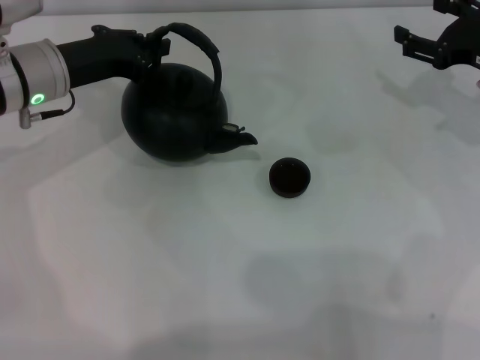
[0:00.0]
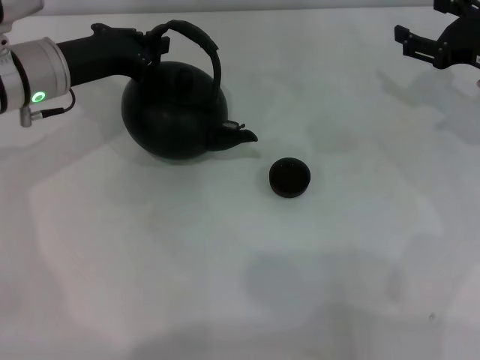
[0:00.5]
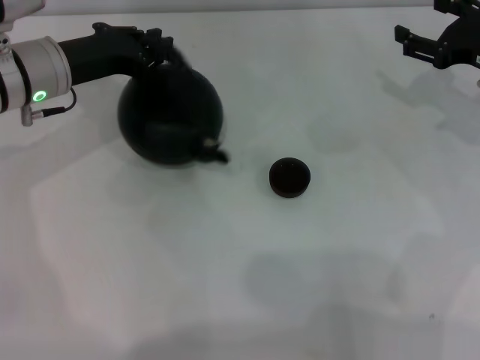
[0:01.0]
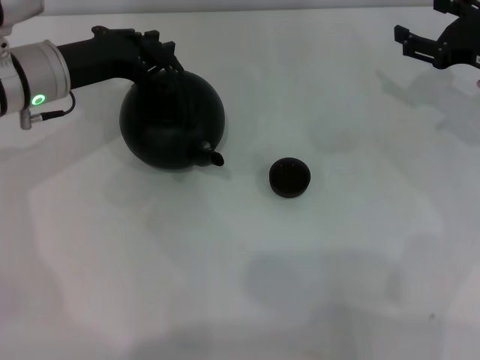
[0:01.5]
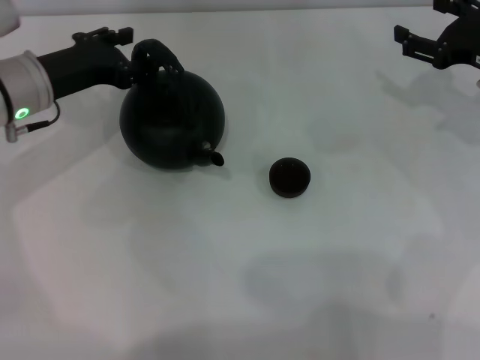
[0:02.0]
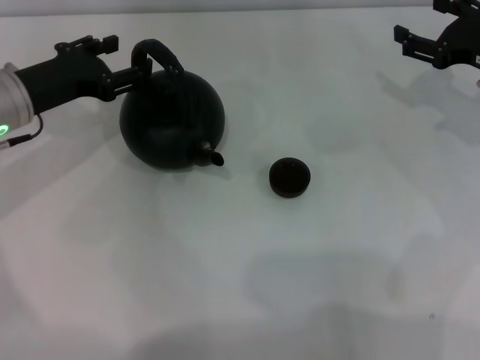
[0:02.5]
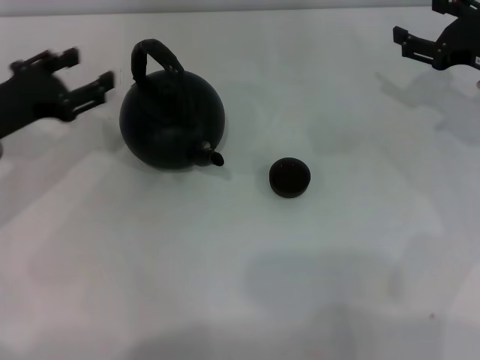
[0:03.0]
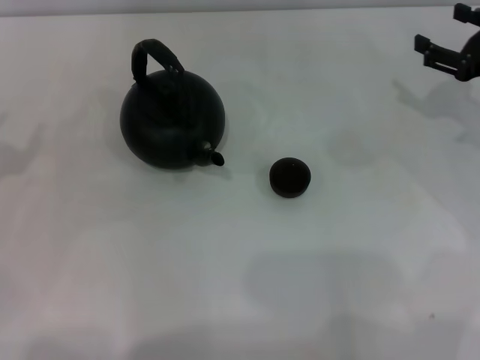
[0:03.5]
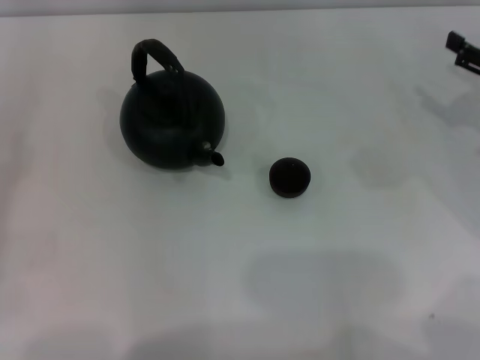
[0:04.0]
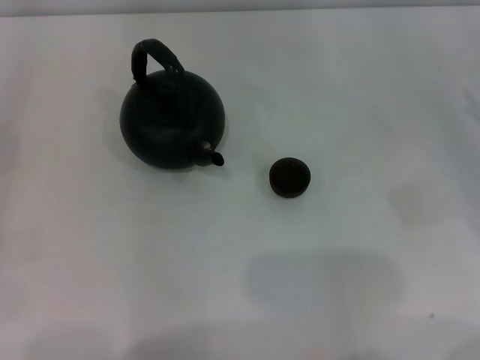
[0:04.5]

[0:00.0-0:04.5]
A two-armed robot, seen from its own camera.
Task of the whole recording: Grasp the handle of the teapot with one hand and pour tea into the teacup.
Step, 0:00.0 to 0:02.0: Put down the teapot with the left gripper.
0:00.0 to 0:02.0: The left gripper opens its fingers.
0:02.0 to 0:04.5: The left gripper is displaced to the left and backward by some 25 cm; the right gripper travels backward and to the right by approximately 10 cm.

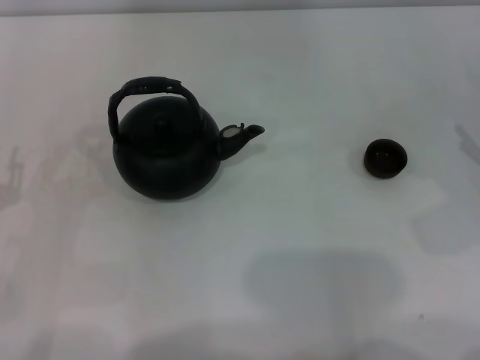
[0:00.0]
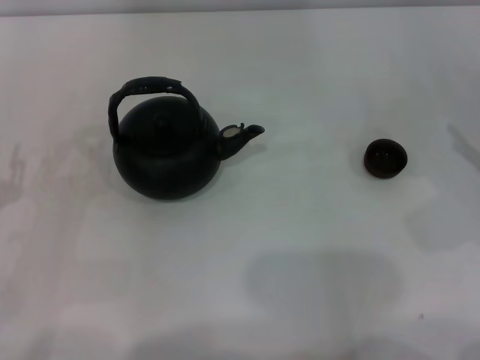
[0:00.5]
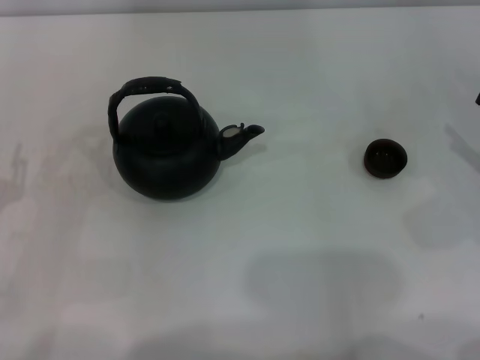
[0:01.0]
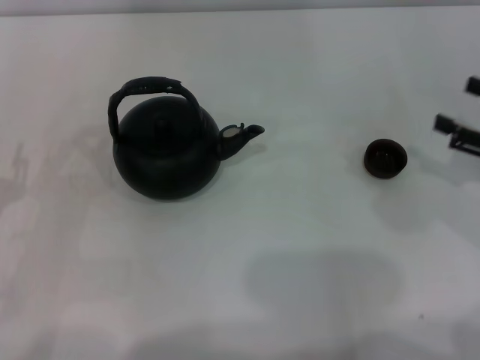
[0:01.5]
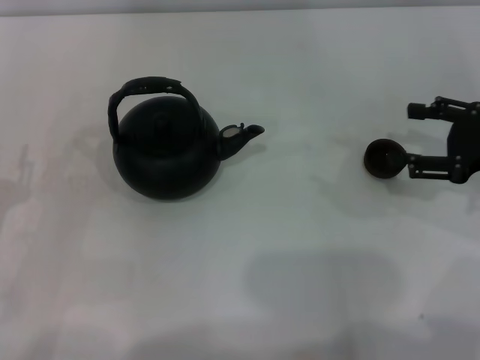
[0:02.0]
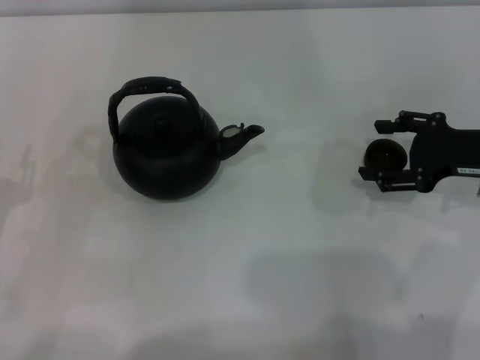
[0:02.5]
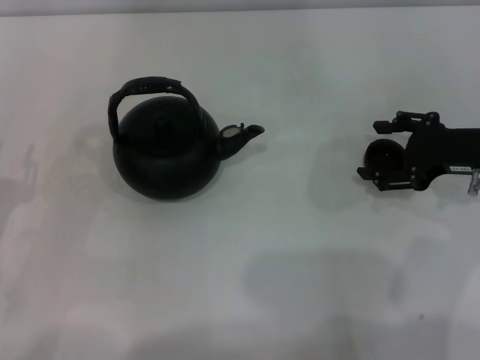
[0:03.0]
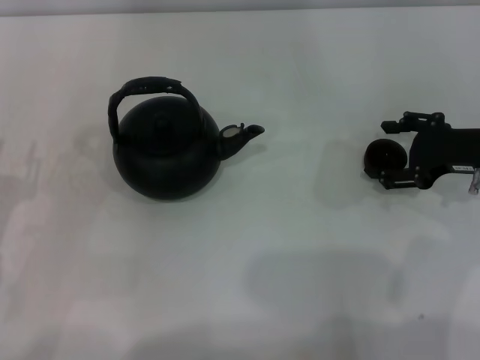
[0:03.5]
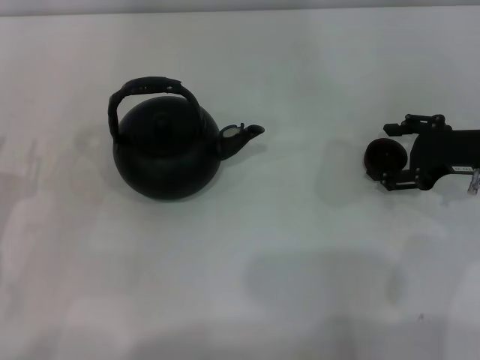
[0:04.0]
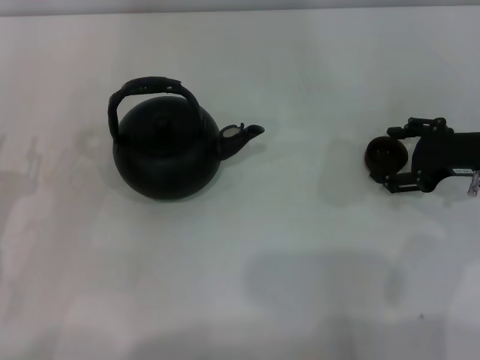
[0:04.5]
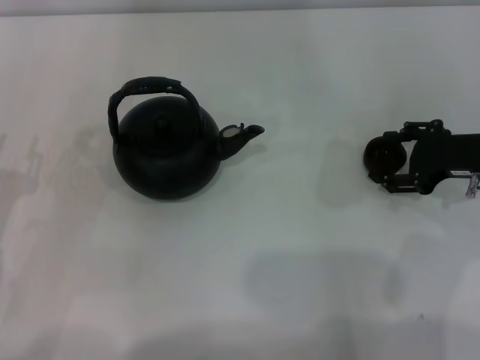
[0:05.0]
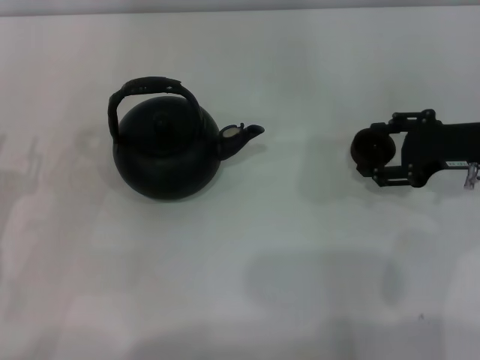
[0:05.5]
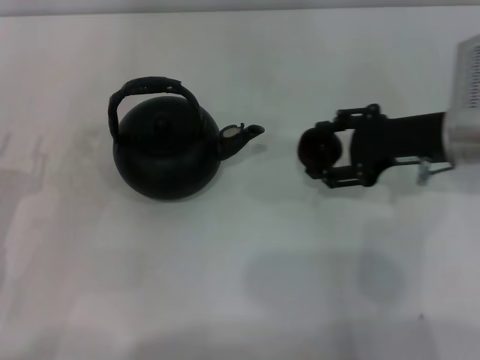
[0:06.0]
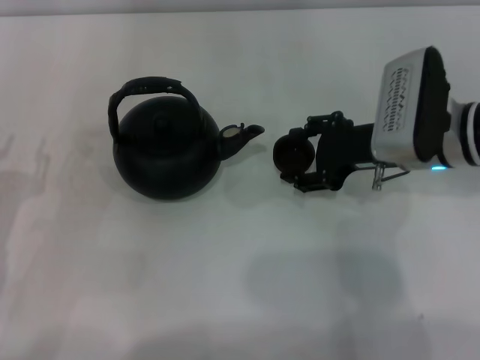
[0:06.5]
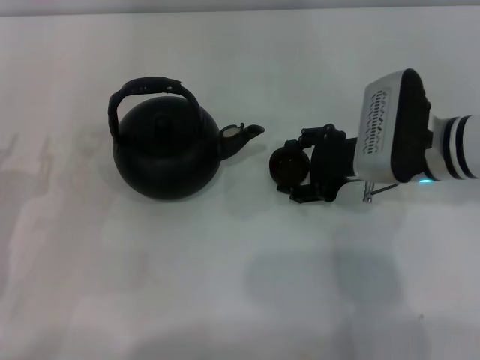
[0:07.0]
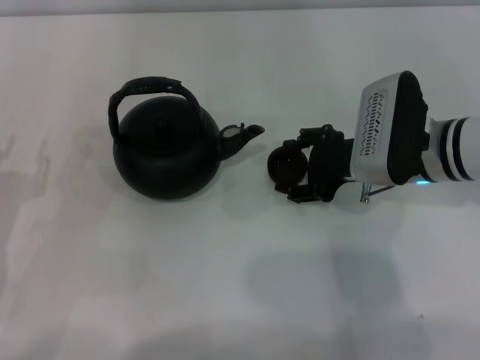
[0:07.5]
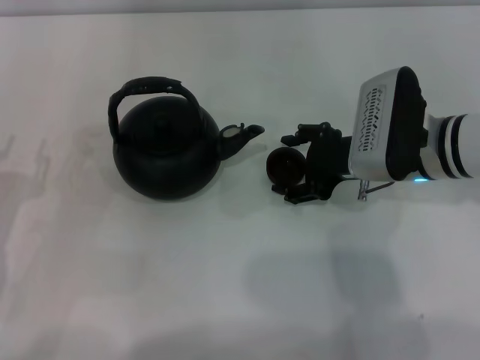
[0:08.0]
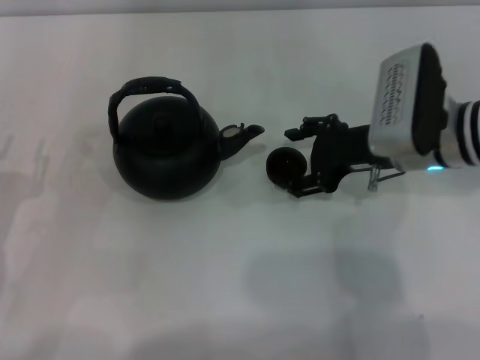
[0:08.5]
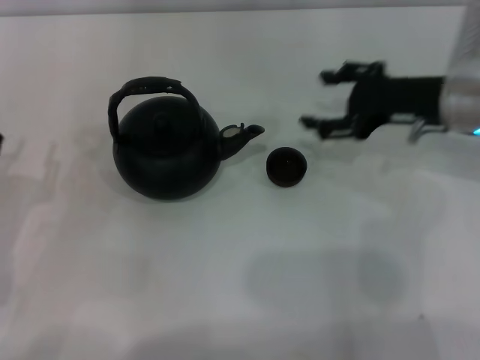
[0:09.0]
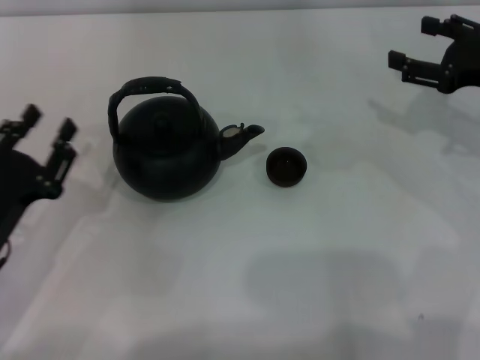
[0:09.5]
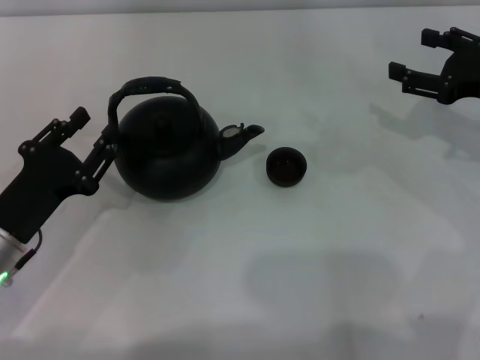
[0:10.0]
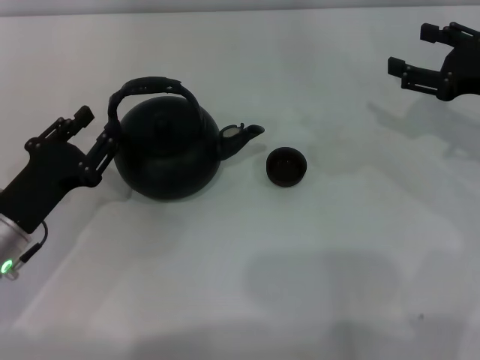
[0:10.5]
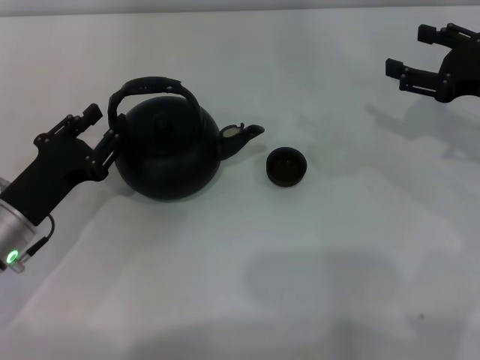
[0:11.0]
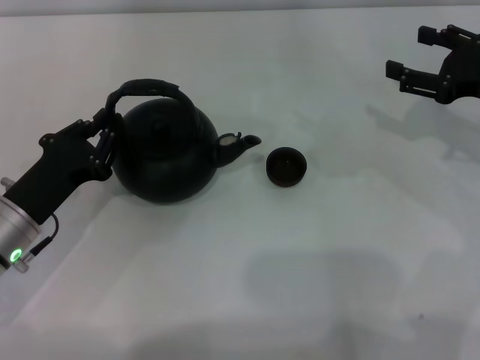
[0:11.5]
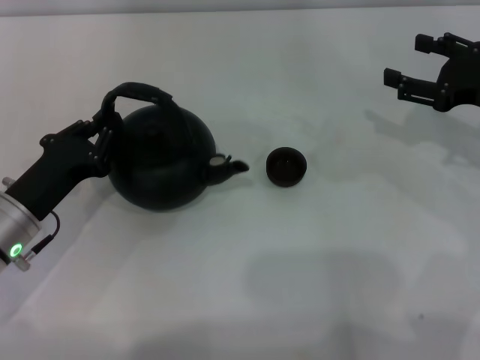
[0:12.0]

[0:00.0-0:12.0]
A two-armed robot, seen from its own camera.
Task of the whole recording: Grasp the handle of the teapot with one hand and pour tea into the teacup.
Step, 0:00.0 to 0:05.5: Pick up the teacup with the right gripper.
Step, 0:06.0 to 0:08.5: Place the teacup in the center of view with the right gripper.
0:00.0 to 0:02.0: The right gripper moves forward, about 5 cm.
0:02.0 to 0:04.0: The right gripper ends up about 5 cm from where it was.
0:04.0 to 0:06.0: The right gripper travels to the left by approximately 5 cm.
0:06.0 to 0:08.0: The right gripper is displaced to the left by roughly 5 cm.
0:08.0 to 0:10.0: The right gripper is displaced to the right by roughly 15 cm; the left gripper goes about 5 cm to the right.
0:10.0 to 0:12.0: The left gripper closes its fingers.

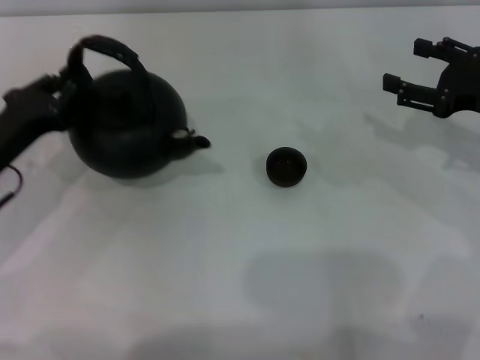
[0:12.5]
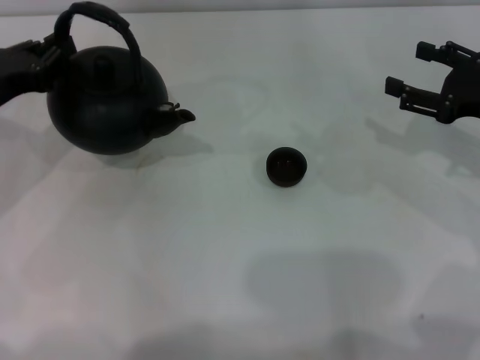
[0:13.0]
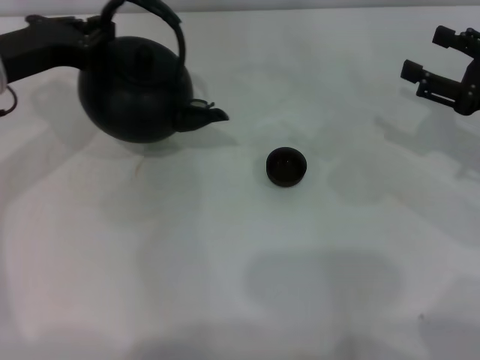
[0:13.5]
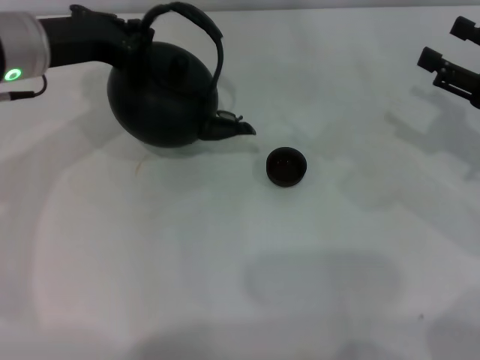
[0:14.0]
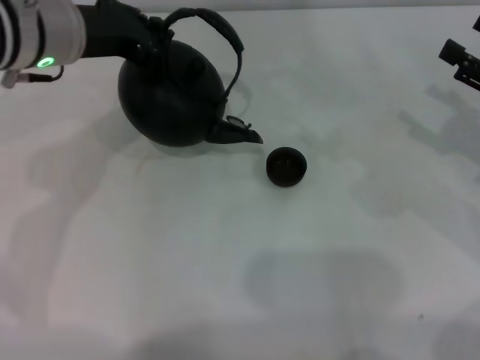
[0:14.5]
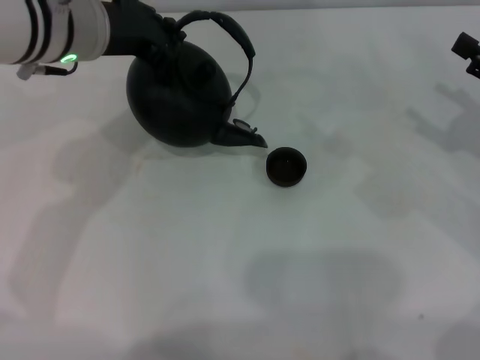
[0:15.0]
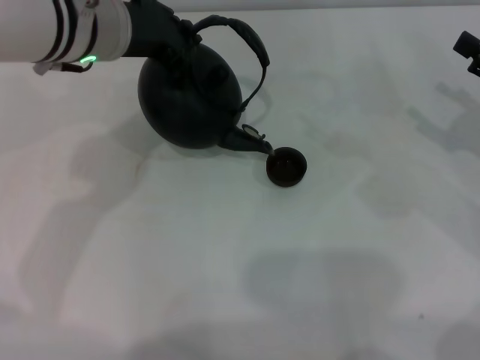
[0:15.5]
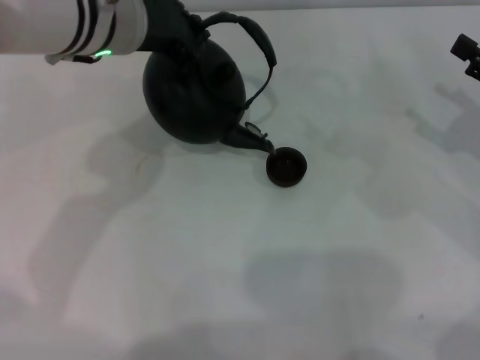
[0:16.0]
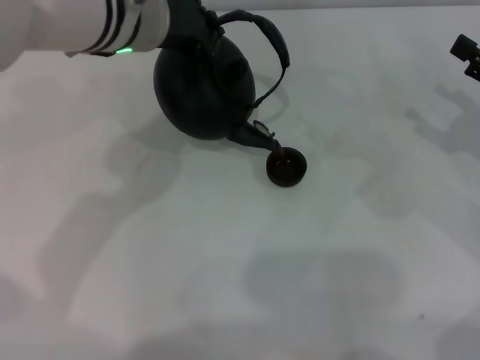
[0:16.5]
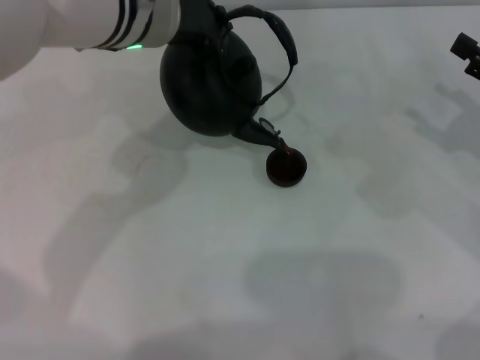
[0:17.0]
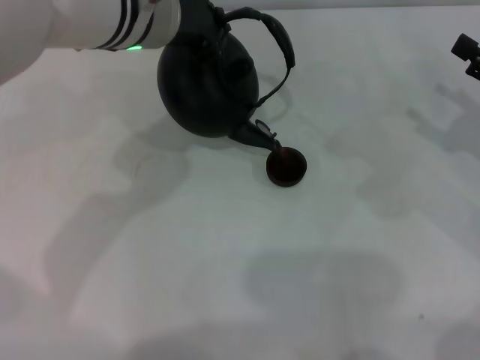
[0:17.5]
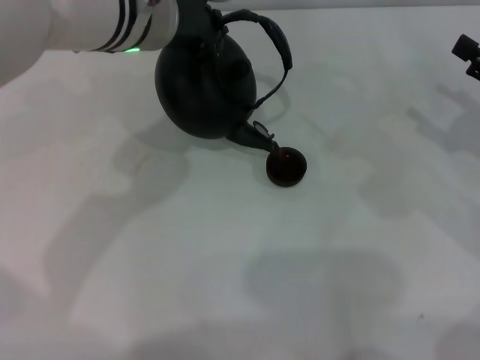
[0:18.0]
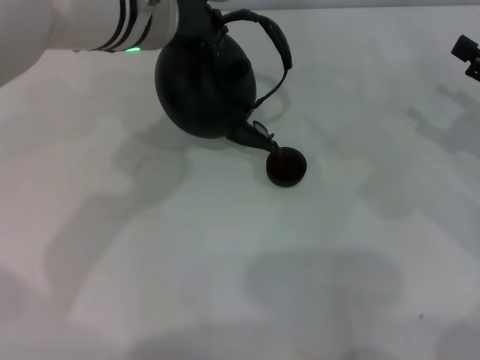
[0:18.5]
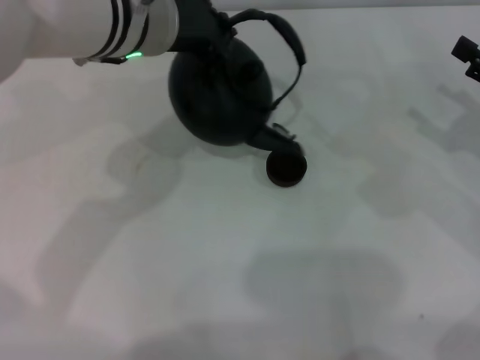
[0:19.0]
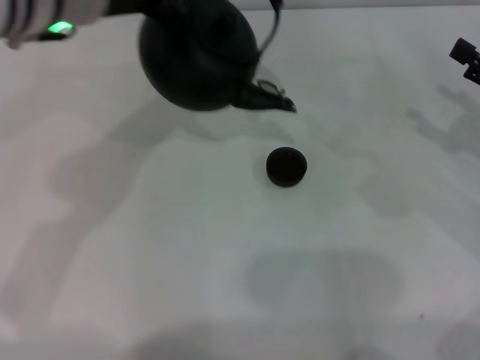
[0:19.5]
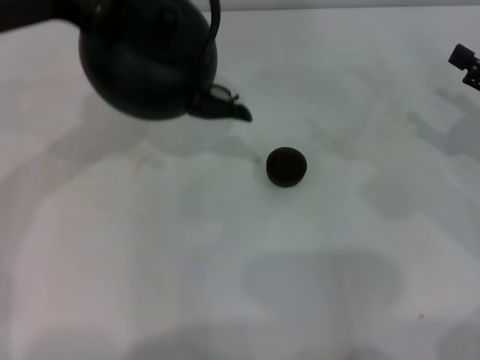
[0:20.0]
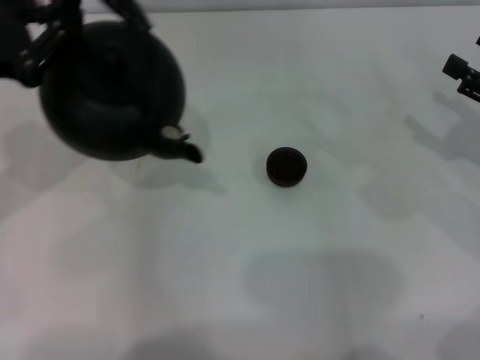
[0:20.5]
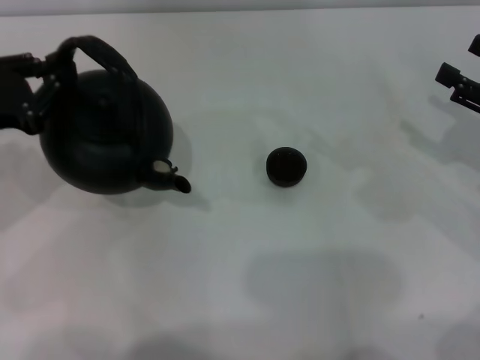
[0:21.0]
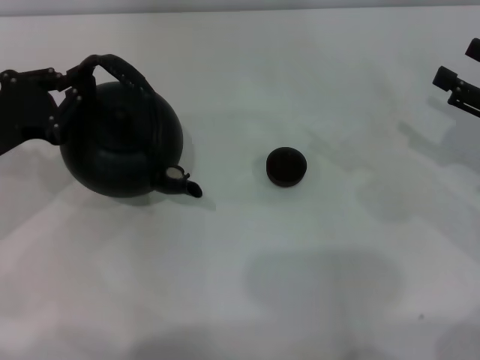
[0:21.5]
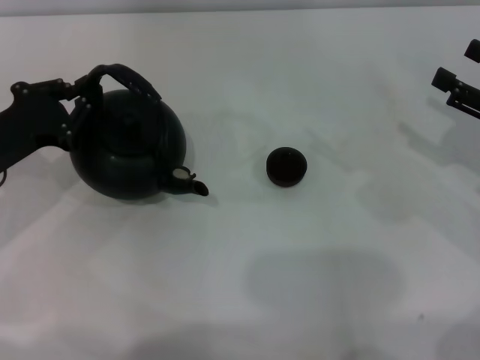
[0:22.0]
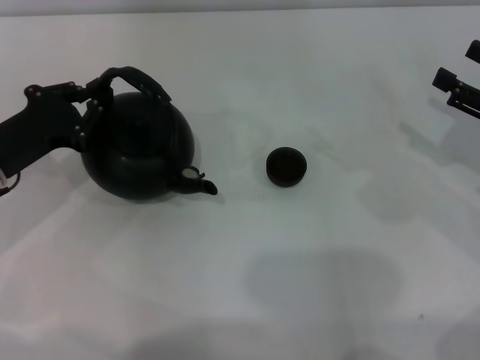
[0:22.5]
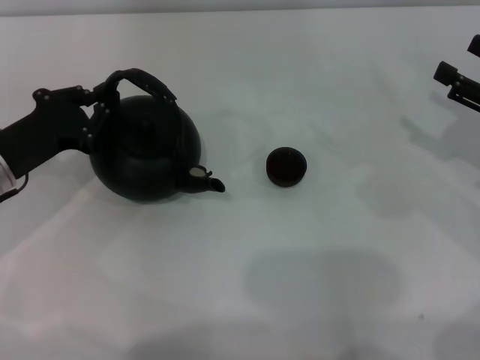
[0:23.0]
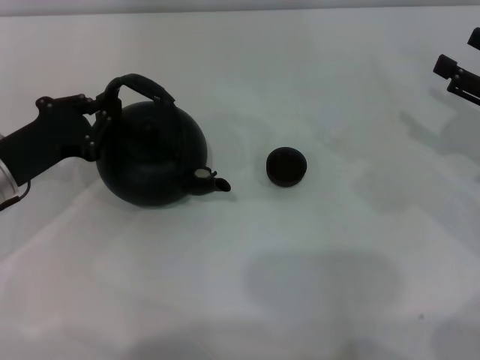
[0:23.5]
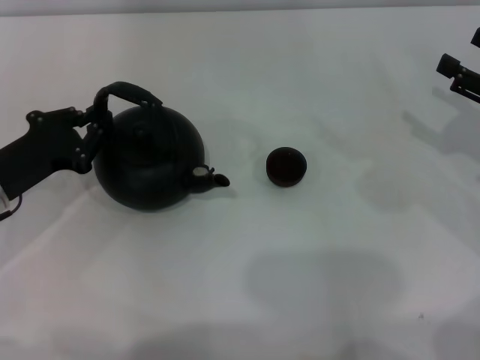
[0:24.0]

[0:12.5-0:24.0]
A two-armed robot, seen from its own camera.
Task of the whole recording: Grasp the handle of the teapot with one hand and pour tea into the teacup.
Step, 0:13.0 to 0:19.0: Pour tea into the teacup with the left gripper.
0:12.5 to 0:14.5: The left gripper heads upward, to the right and forward, covering approximately 20 cm; the right gripper moves about 5 cm.
0:14.5 to 0:16.5: The left gripper is displaced to the right by about 10 cm.
0:16.5 to 0:18.5: Both grippers stay about where they are.
0:18.5 to 0:20.0: The left gripper goes approximately 15 cm to the left.
0:20.0 to 0:22.0: The left gripper heads downward, covering some 15 cm.
0:22.0 to 0:24.0: The grippers stay close to where they were, moving slightly.
